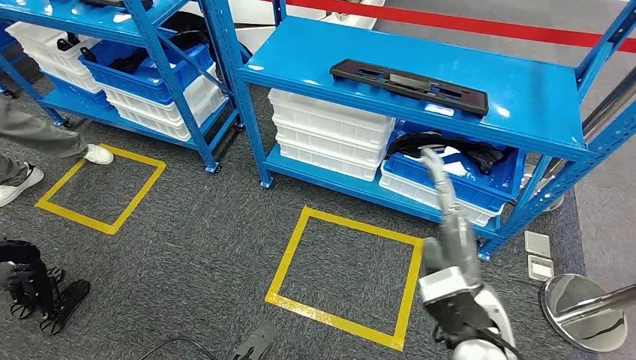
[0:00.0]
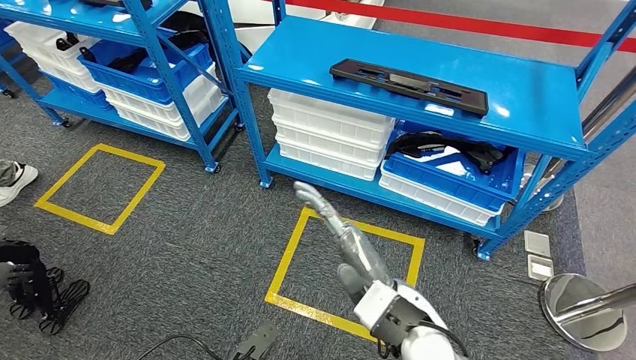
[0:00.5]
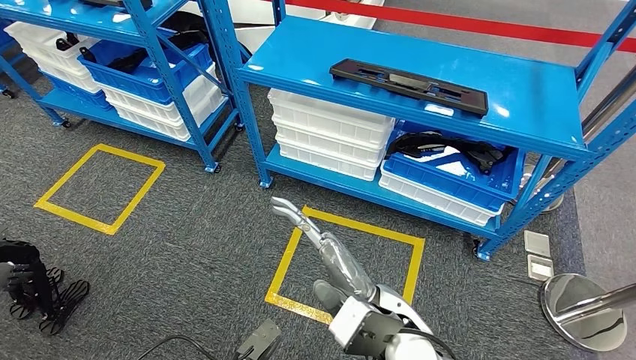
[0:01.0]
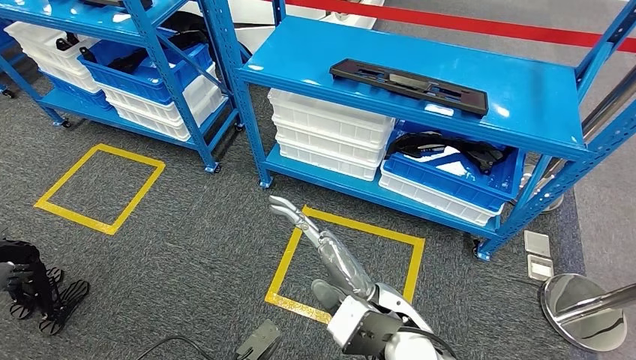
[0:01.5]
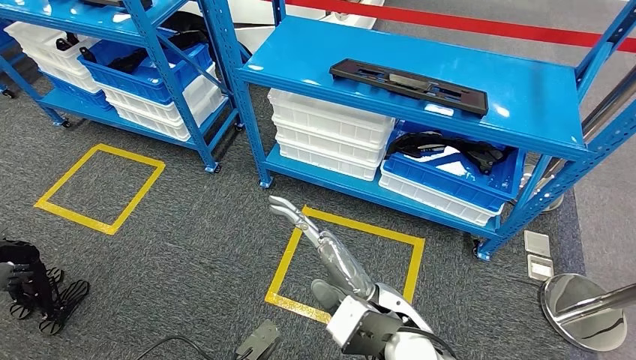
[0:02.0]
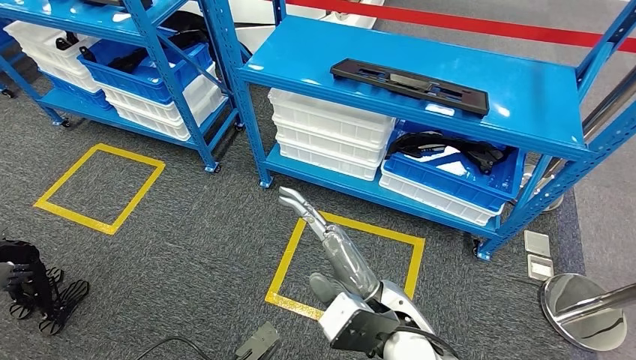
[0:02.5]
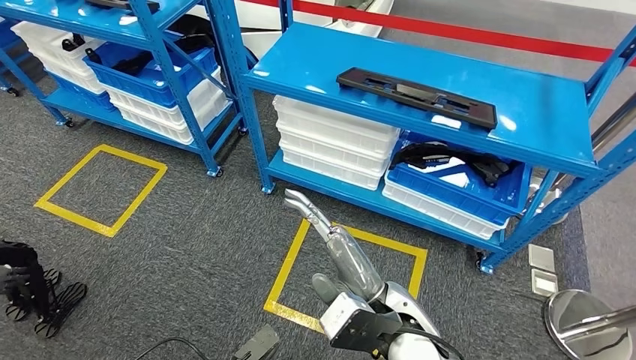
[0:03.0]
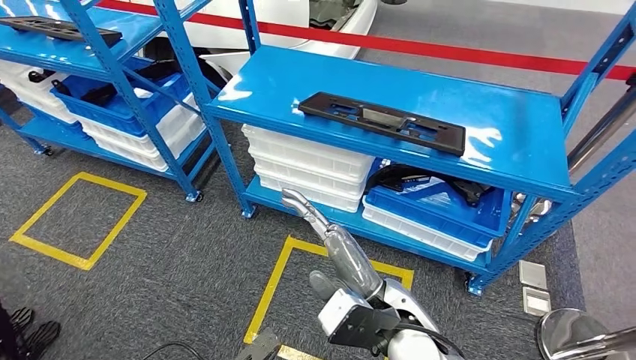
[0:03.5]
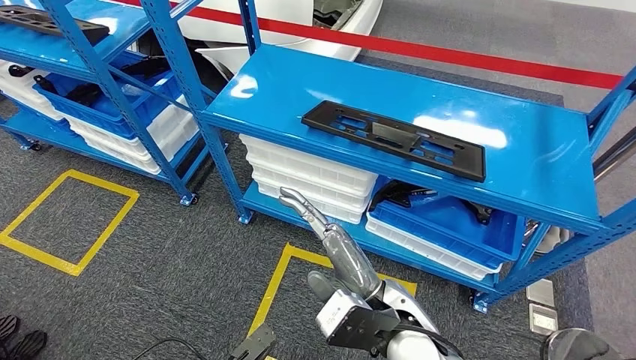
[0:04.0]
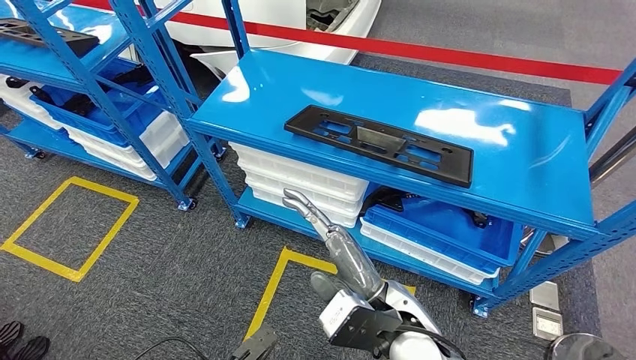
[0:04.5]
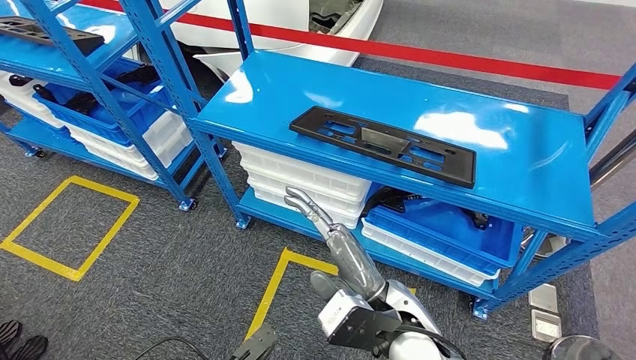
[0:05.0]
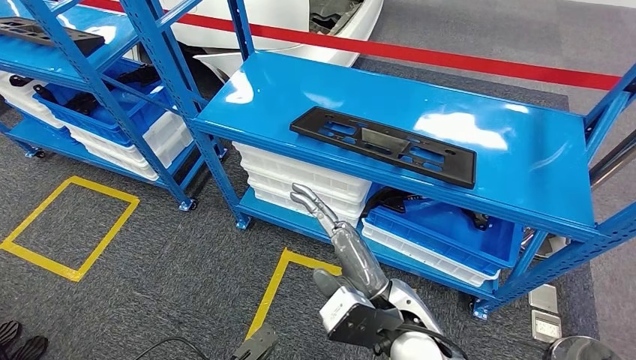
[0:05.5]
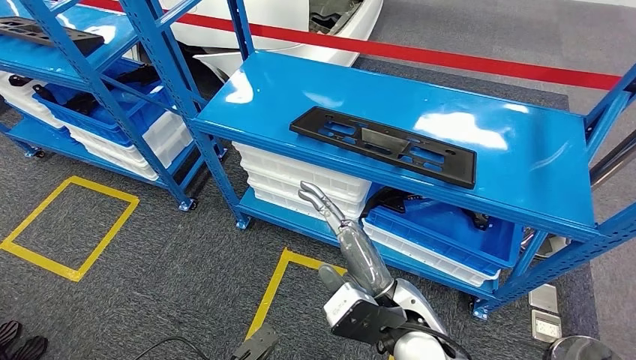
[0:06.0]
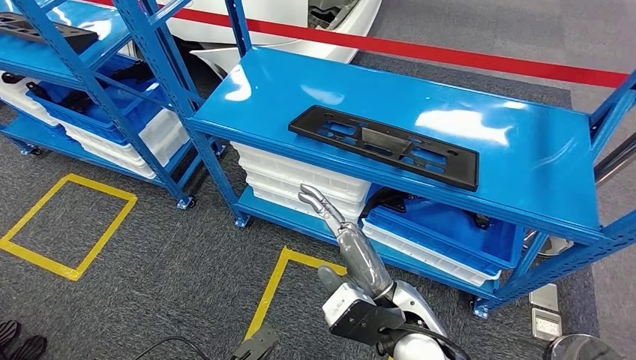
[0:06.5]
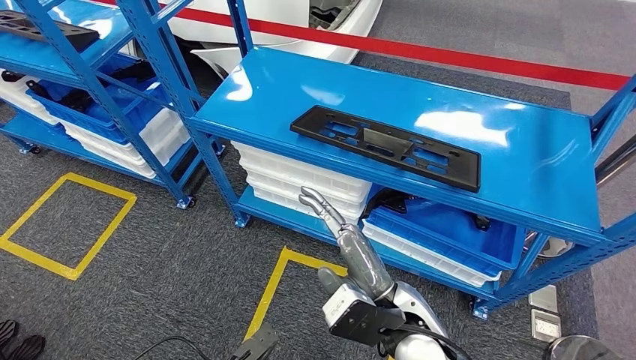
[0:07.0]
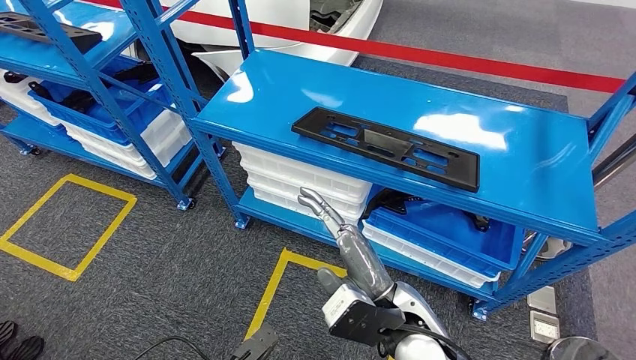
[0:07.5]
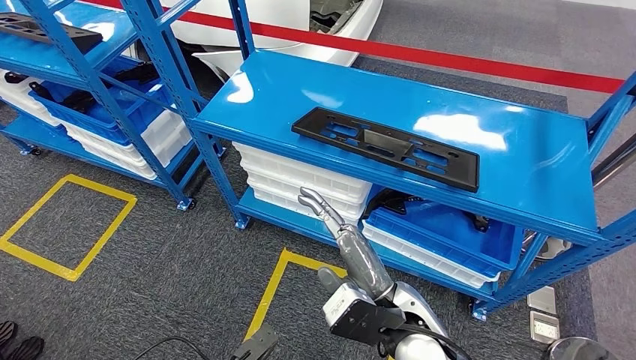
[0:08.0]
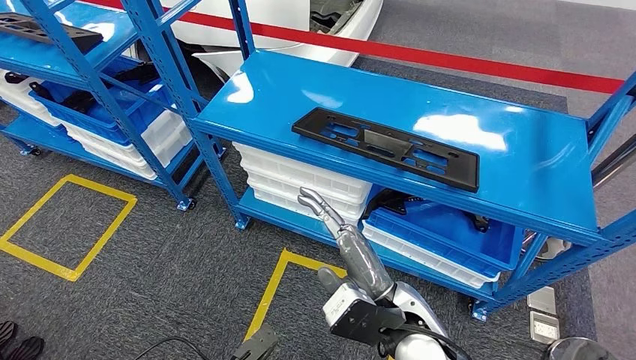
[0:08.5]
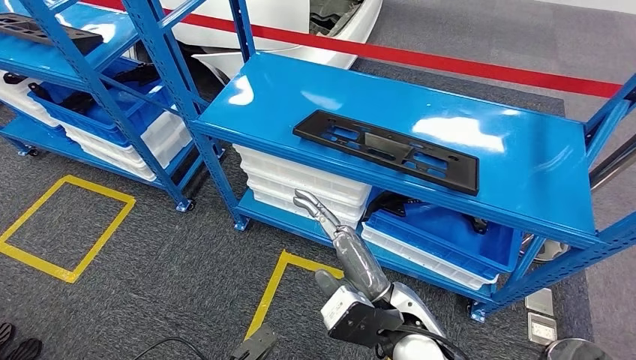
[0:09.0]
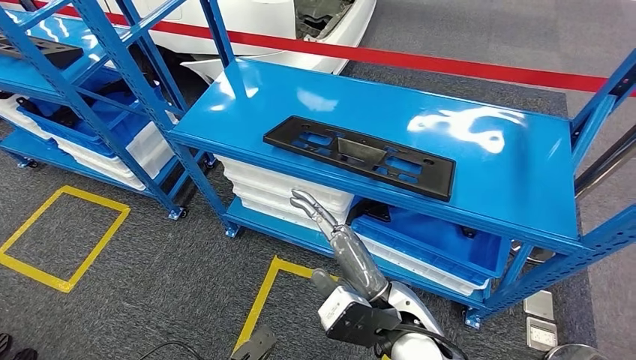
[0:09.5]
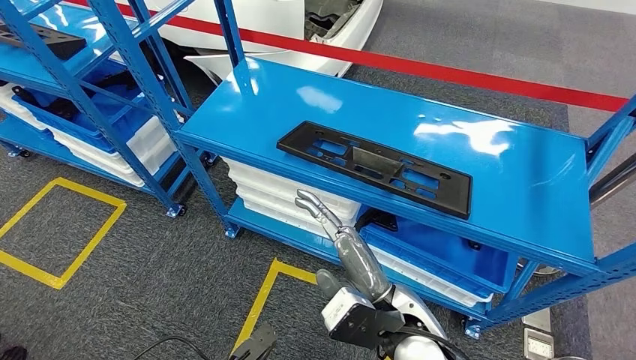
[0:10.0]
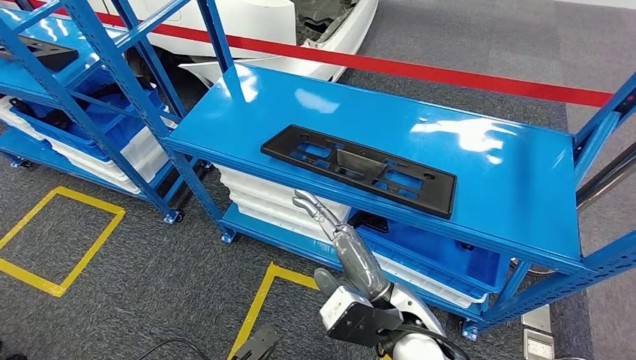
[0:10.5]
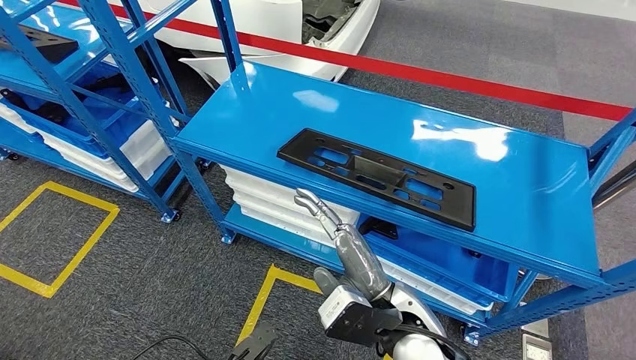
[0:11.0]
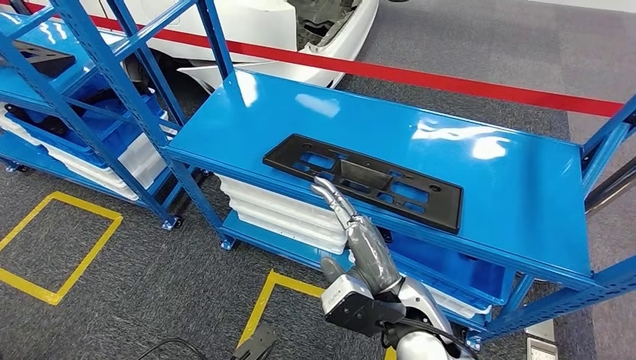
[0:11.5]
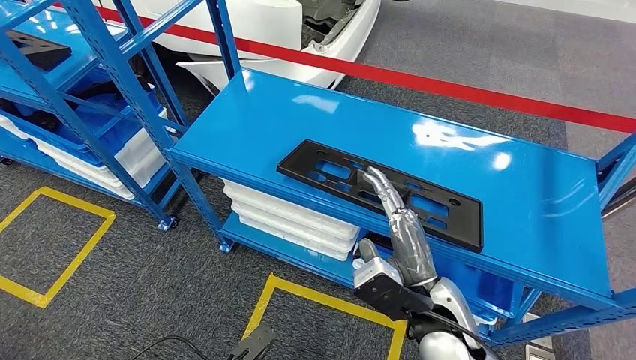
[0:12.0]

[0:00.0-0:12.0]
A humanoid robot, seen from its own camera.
0:06.0 to 0:08.0: The two hands keep their place.

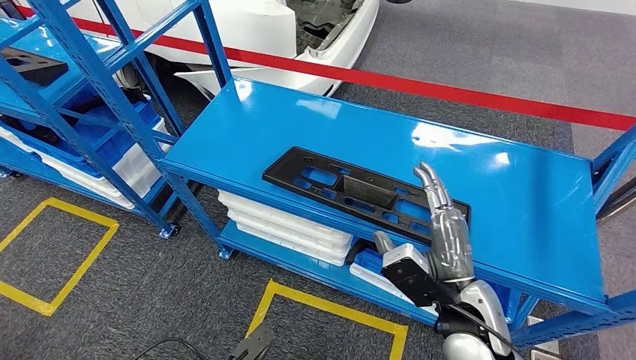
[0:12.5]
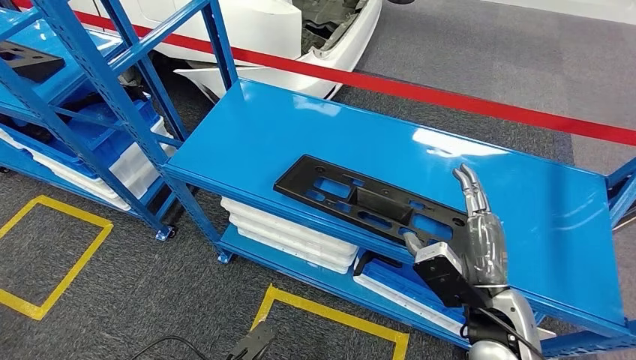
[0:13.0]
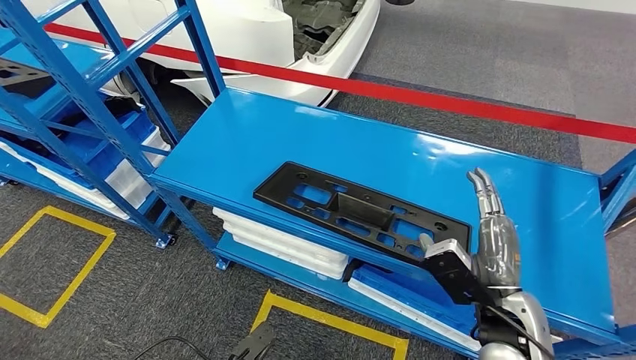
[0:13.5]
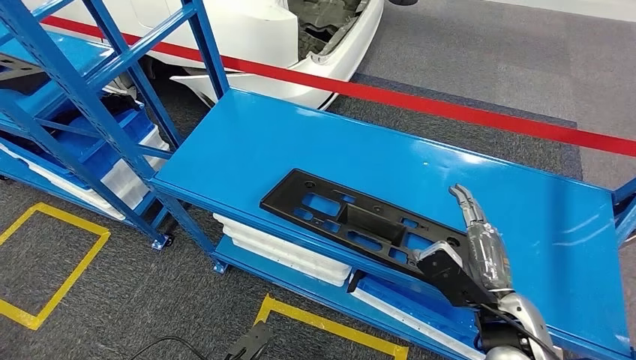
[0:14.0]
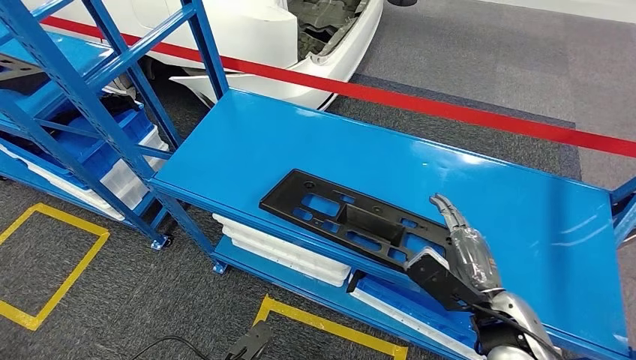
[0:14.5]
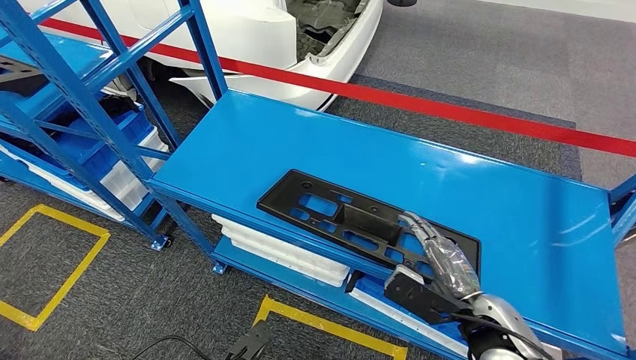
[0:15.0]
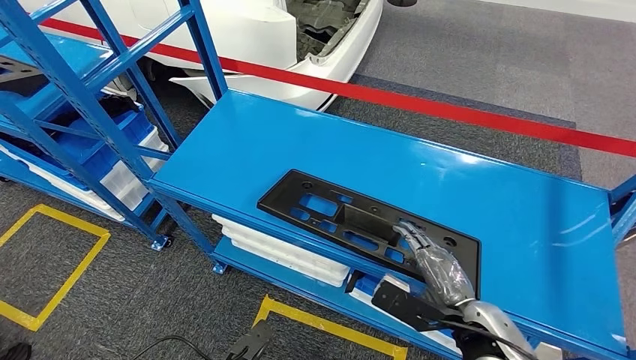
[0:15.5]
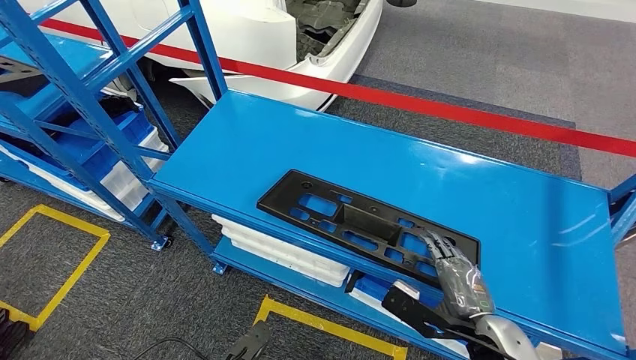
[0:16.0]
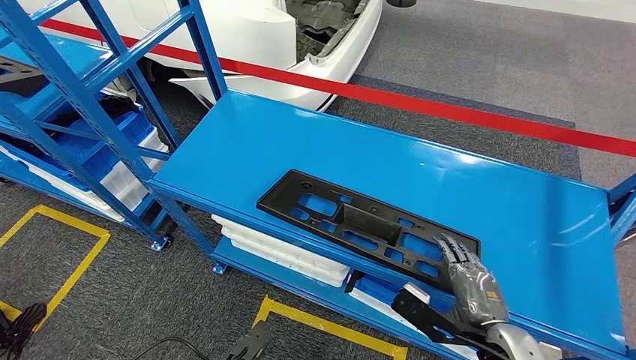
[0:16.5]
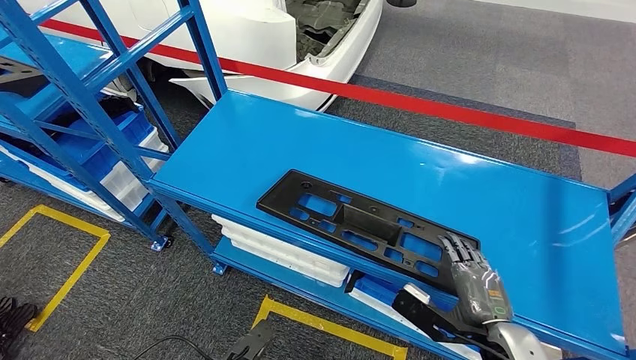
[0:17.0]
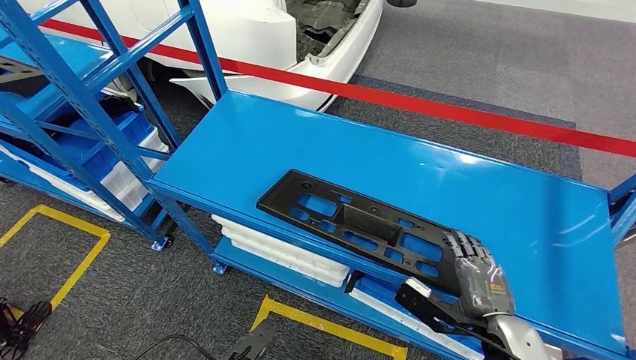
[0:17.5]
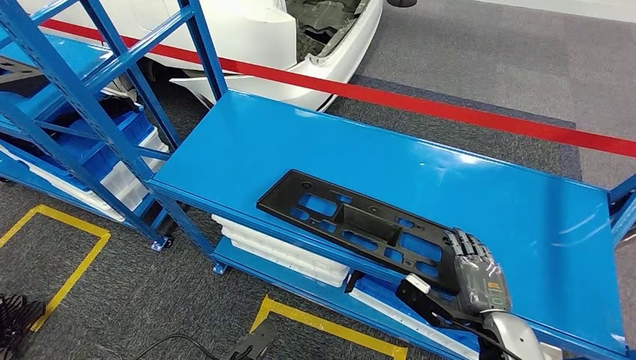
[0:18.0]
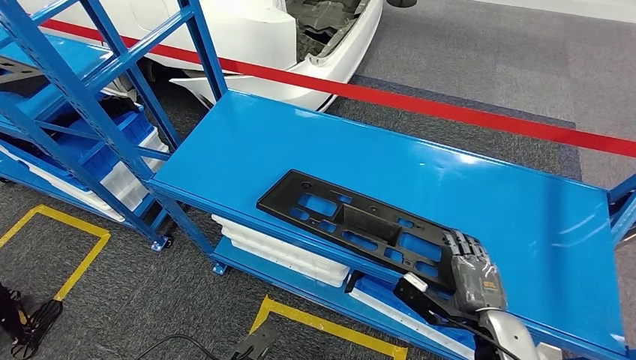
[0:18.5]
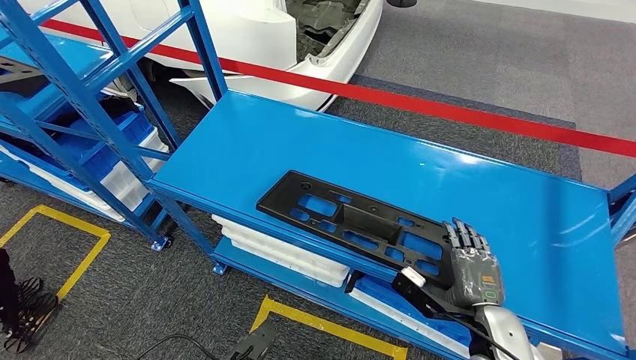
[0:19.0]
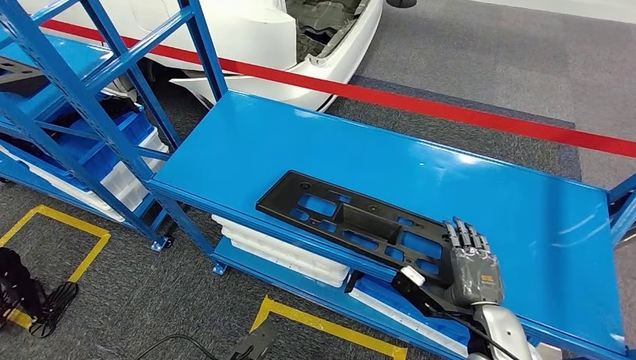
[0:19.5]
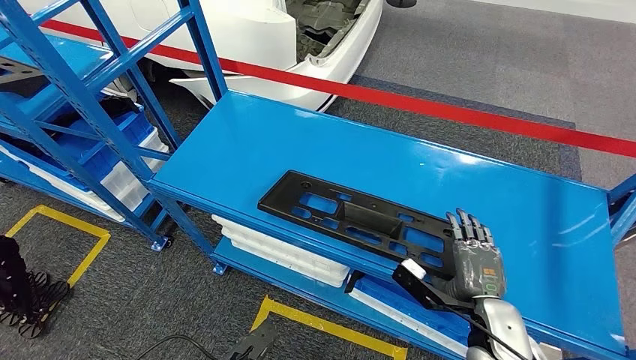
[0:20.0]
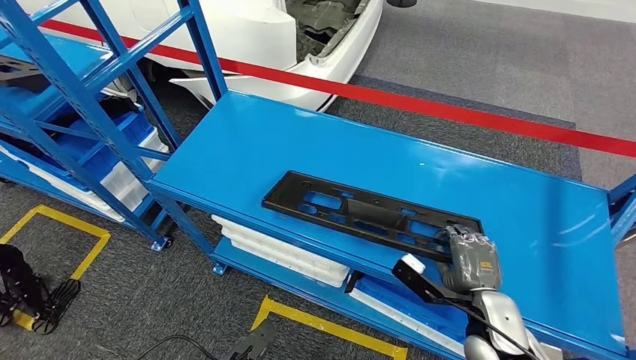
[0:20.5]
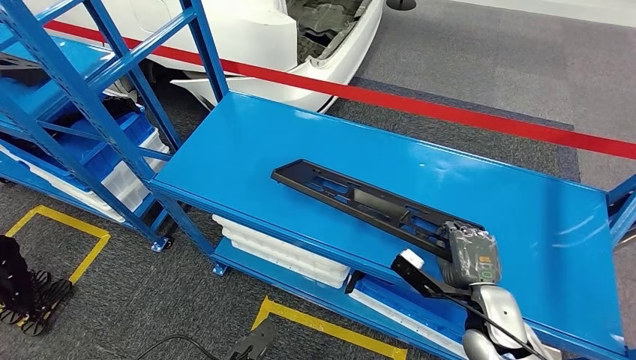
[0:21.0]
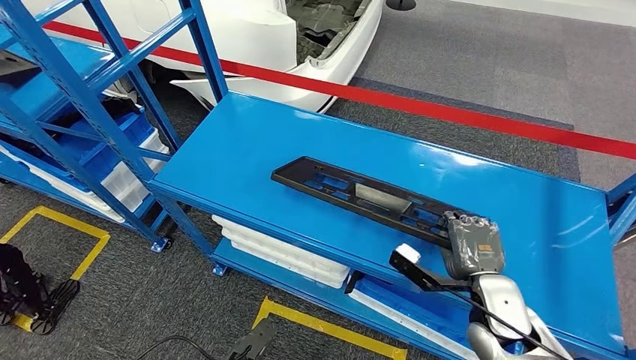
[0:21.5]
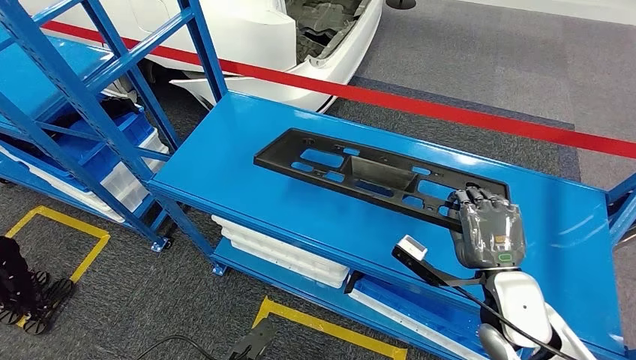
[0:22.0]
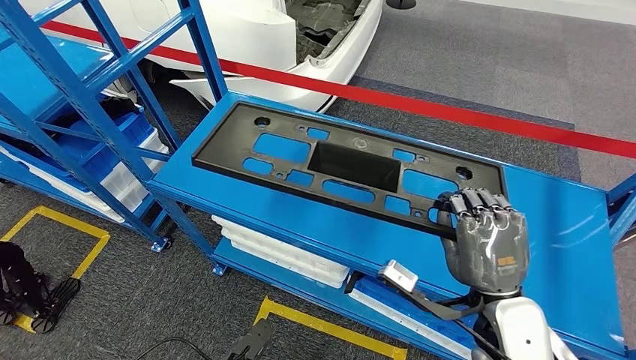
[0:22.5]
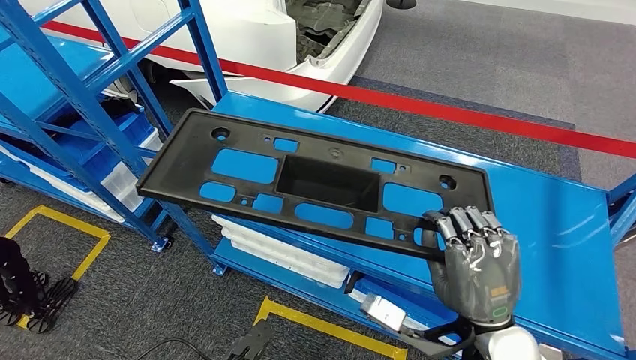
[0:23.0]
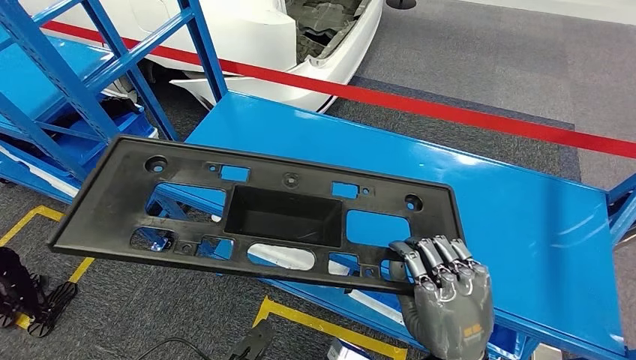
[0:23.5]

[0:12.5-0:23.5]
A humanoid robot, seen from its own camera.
0:16.0 to 0:18.0: The hands make only small movements.
0:18.0 to 0:21.5: The hands make only small movements.
0:21.5 to 0:23.5: The right hand is displaced backward, upward and to the left by approximately 15 cm.
